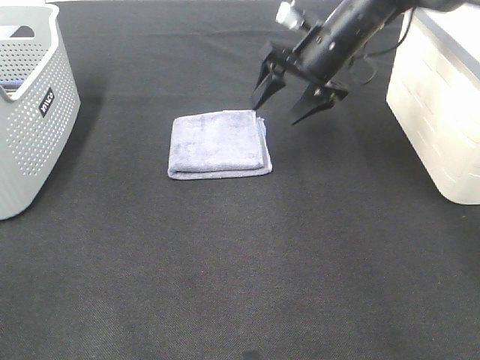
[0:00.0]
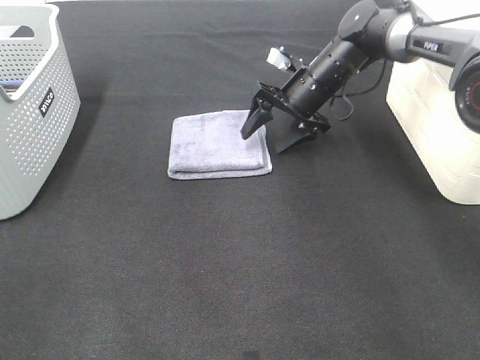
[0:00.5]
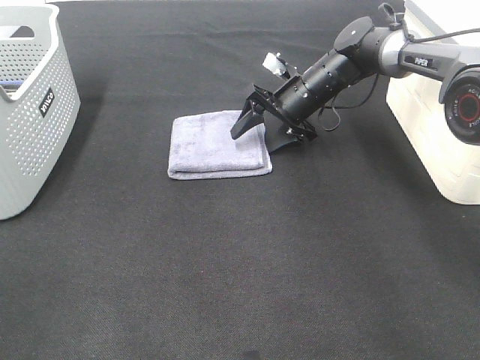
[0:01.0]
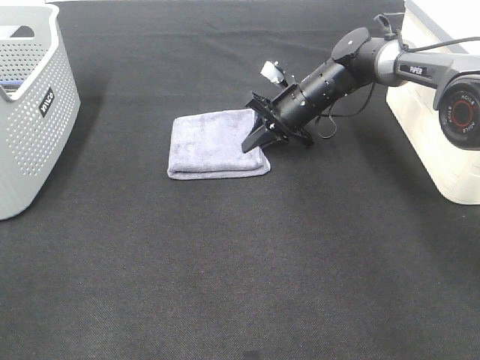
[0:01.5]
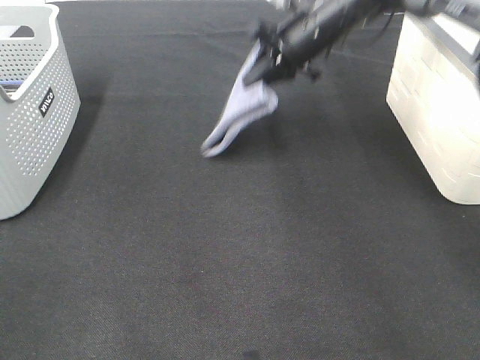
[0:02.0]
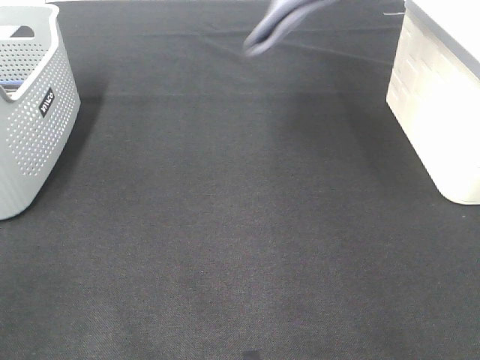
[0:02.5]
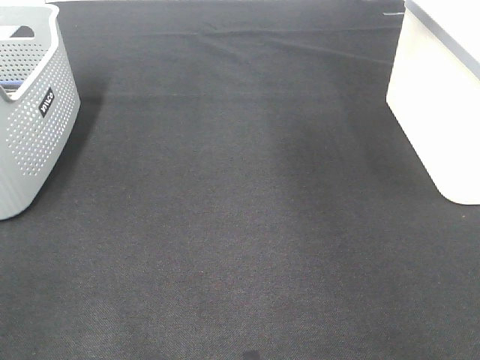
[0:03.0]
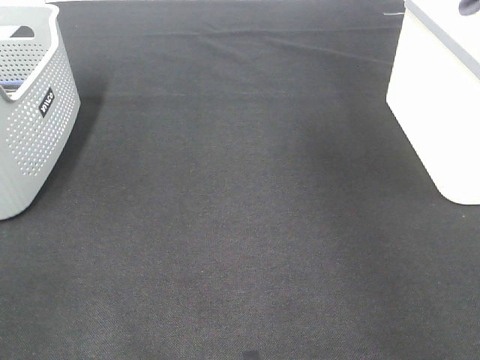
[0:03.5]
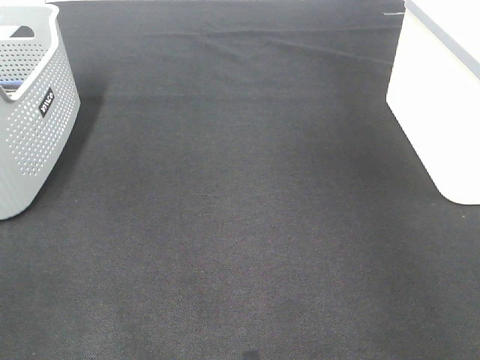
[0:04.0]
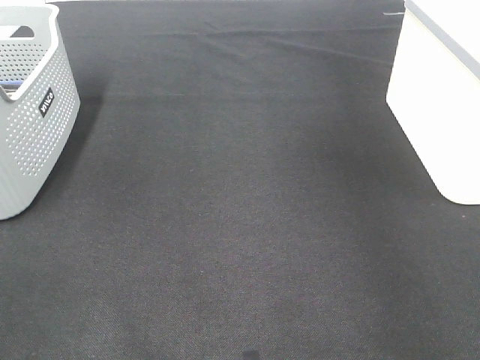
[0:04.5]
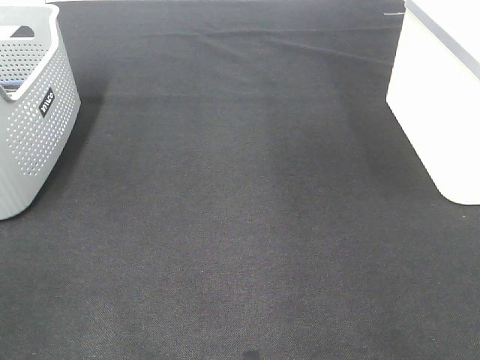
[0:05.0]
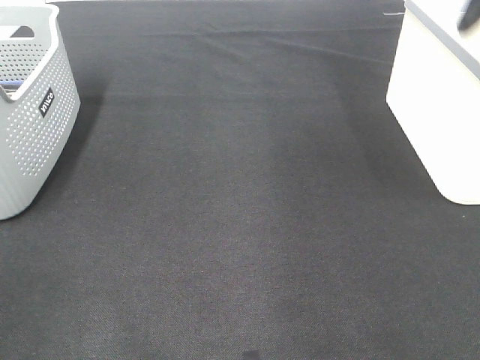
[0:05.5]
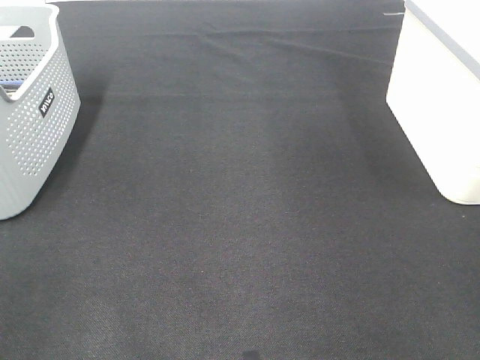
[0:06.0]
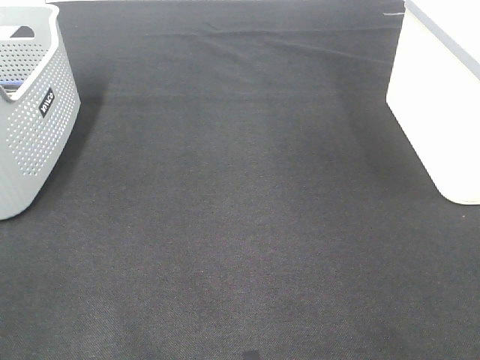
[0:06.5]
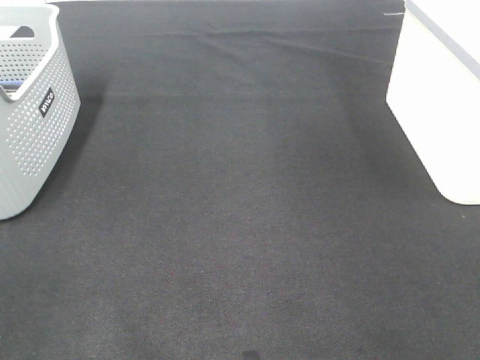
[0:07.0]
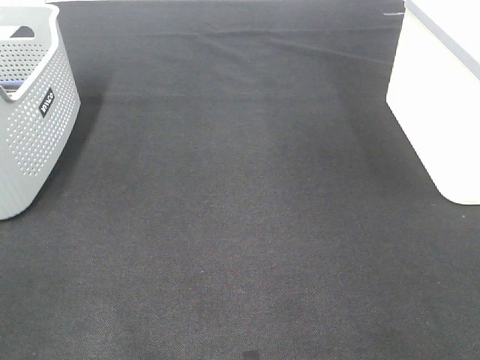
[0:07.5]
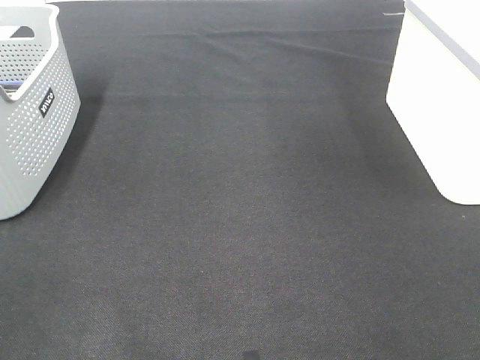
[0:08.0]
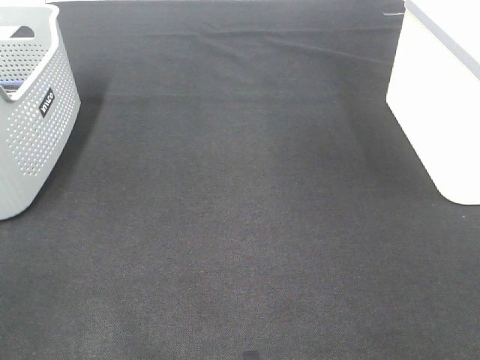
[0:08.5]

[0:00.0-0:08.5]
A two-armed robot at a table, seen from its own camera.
Step, 0:02.0 to 0:04.0: Right hand: place the grey towel in right basket.
0:00.0 to 0:02.0: The right gripper reaches approximately 10 cm downward, then returns, and closes up.
0:02.0 to 0:04.0: The right gripper heads to the right and upward, covering roughly 30 cm, and opens.

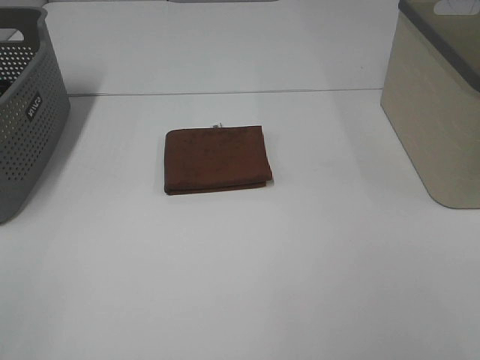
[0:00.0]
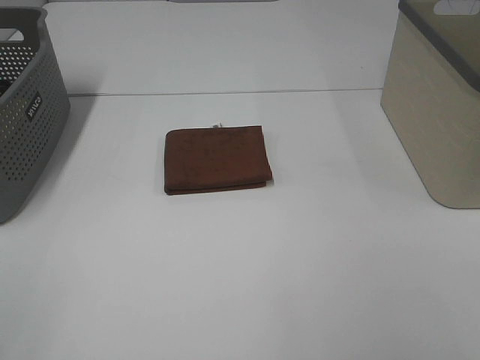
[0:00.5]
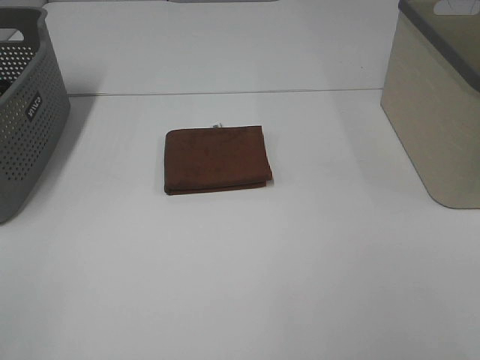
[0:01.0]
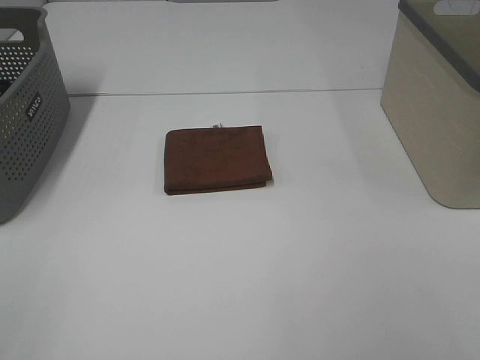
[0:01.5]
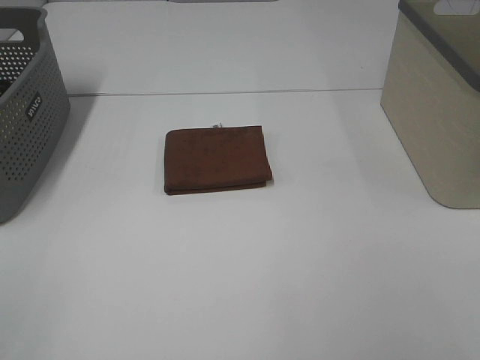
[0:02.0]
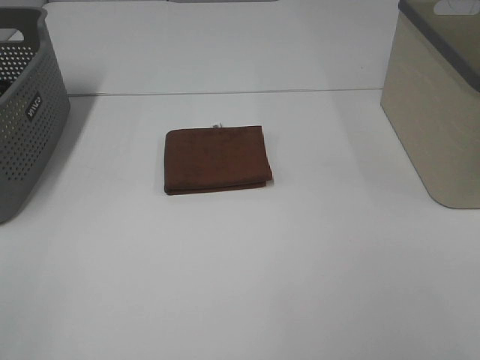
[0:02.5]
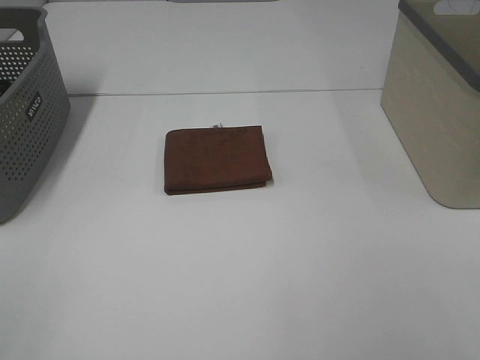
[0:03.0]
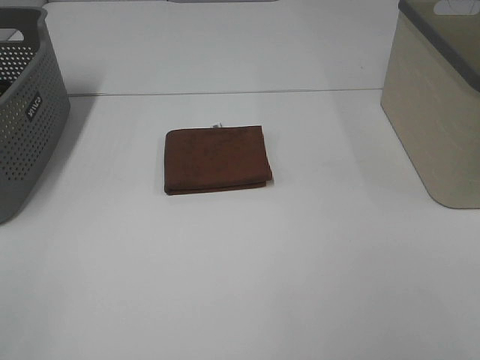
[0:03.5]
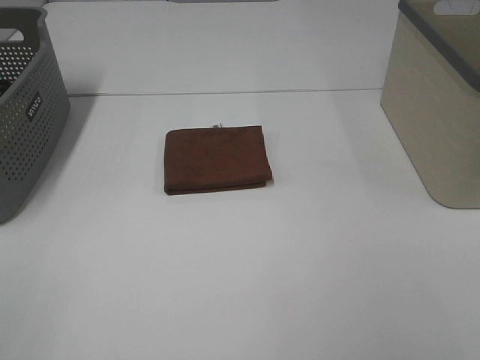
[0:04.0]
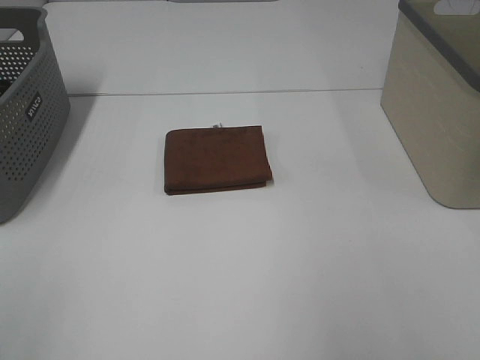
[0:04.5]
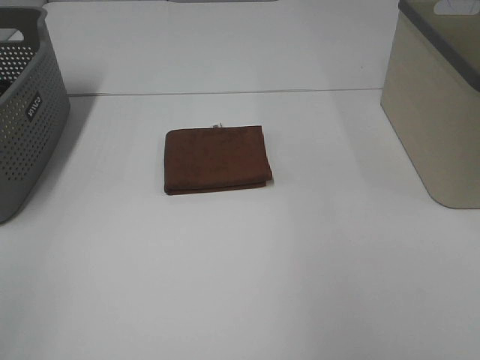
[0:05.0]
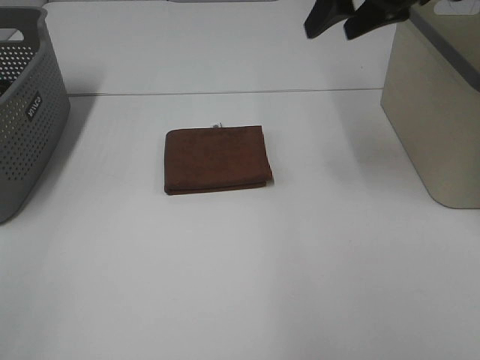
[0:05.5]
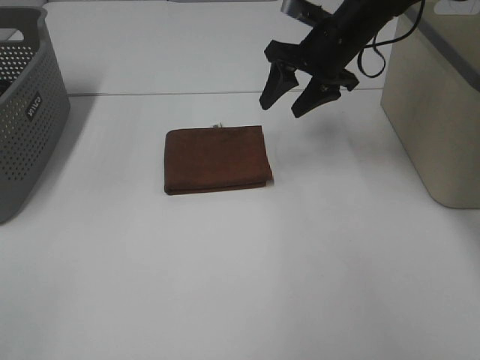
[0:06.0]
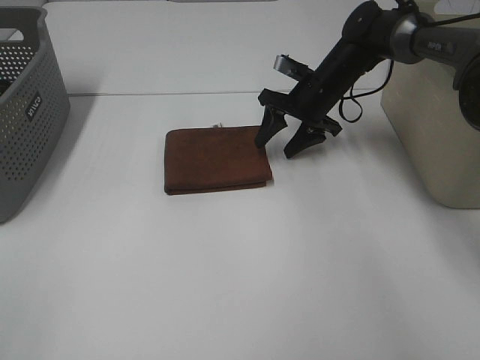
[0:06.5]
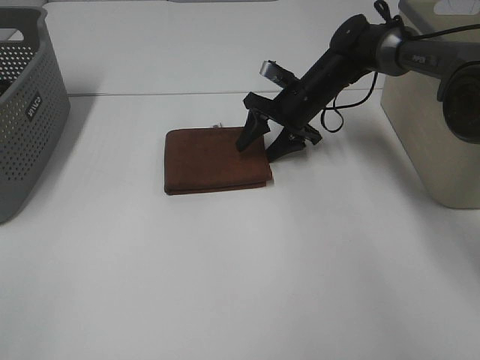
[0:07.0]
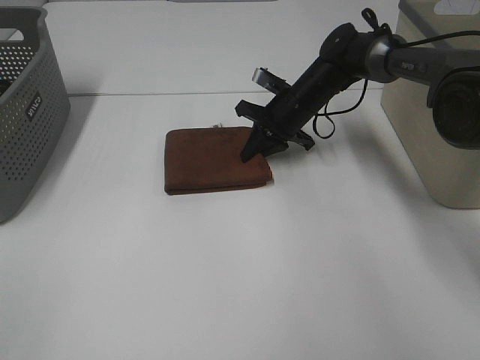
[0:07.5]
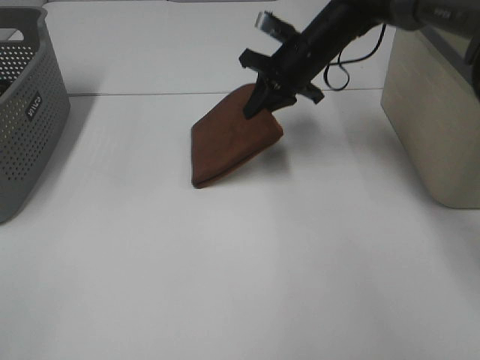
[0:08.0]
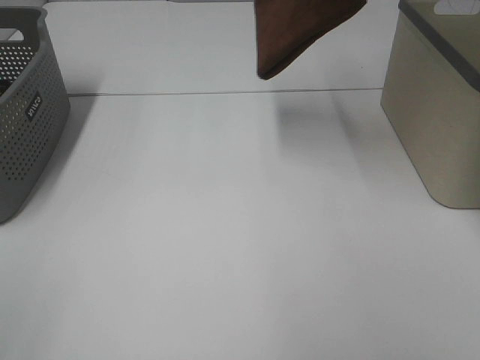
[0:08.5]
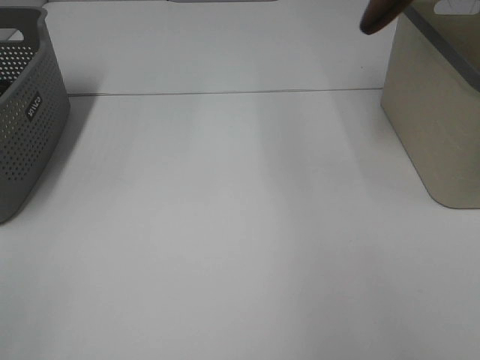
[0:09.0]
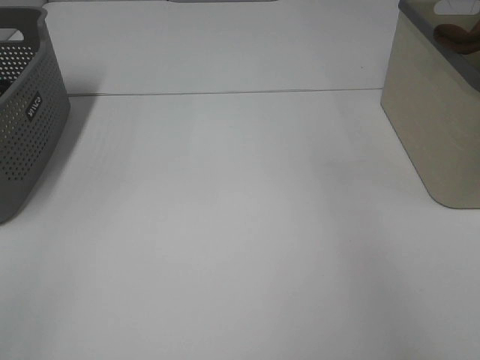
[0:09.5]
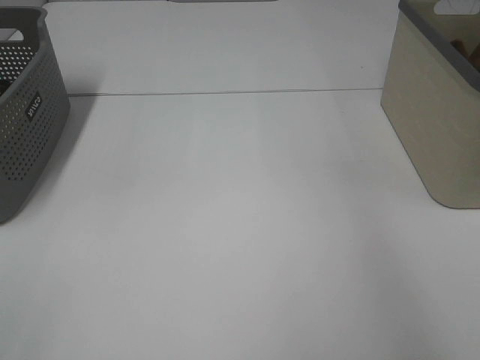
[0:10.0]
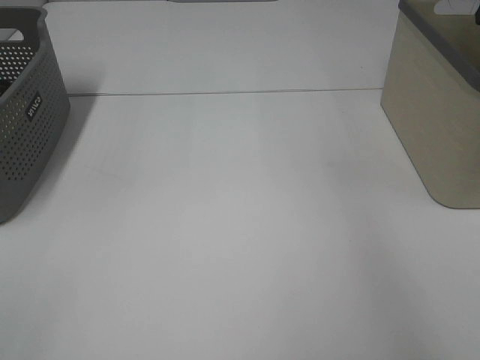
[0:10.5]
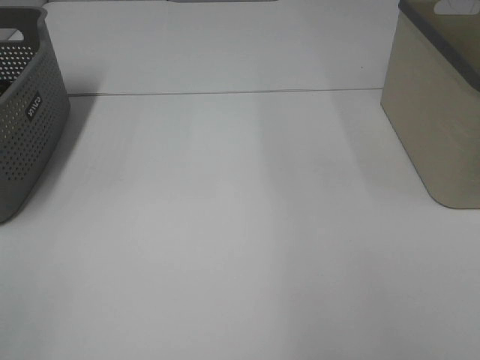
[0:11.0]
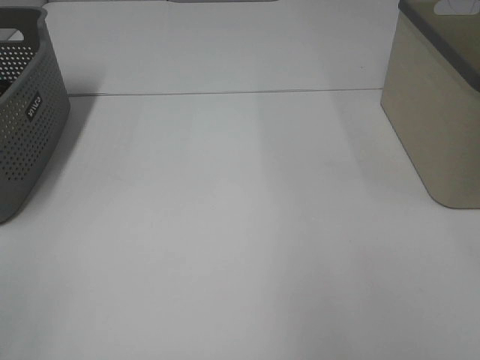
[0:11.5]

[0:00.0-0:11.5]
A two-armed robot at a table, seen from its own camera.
Step, 0:00.0 to 0:07.5: Right hand: grab the folded brown towel.
Step, 0:08.0 to 0:10.0: Right hand: place the brown towel in right basket.
0:00.0 to 0:04.0: The two grippers keep their place.
0:04.0 to 0:06.0: The right gripper travels forward by some 50 cm.
0:06.0 to 0:07.5: The right gripper travels downward by approximately 10 cm, and closes its fingers.
0:07.5 to 0:09.5: The right gripper moves upward and to the right, approximately 40 cm.

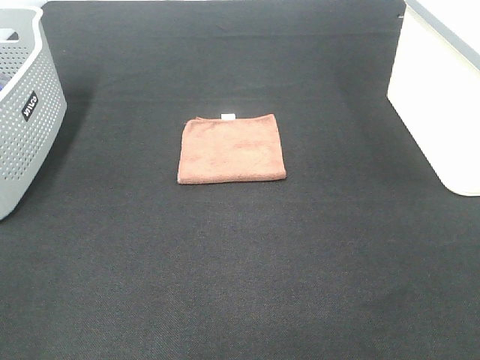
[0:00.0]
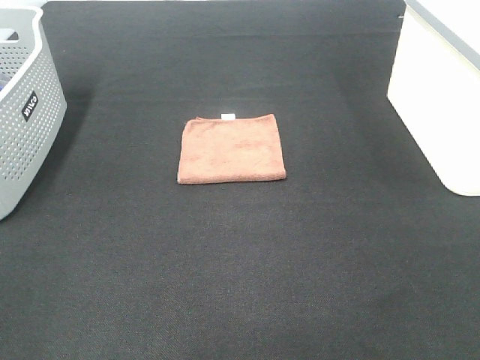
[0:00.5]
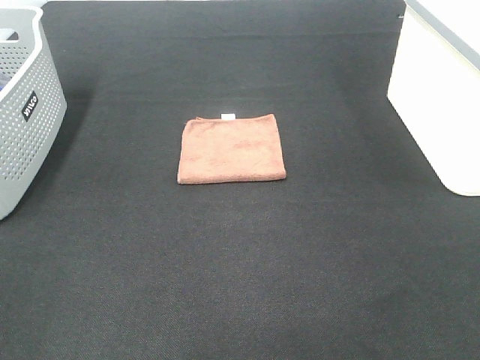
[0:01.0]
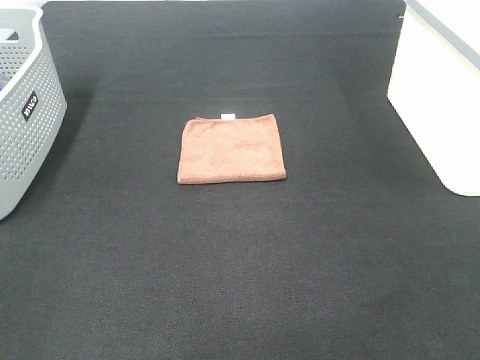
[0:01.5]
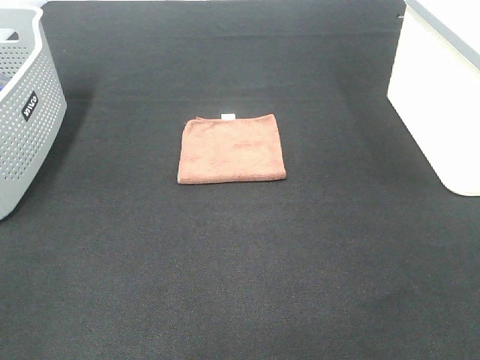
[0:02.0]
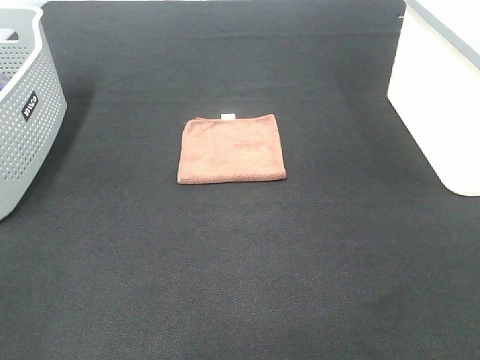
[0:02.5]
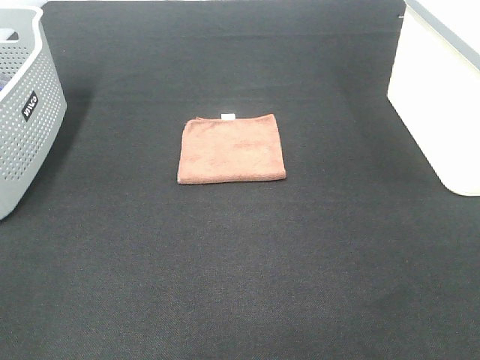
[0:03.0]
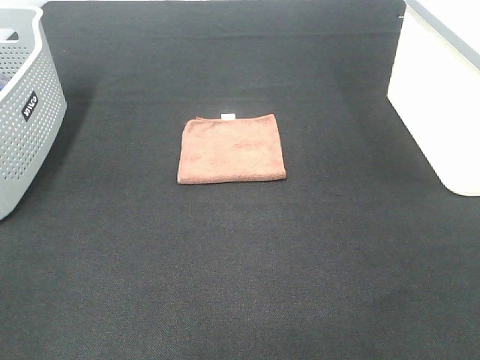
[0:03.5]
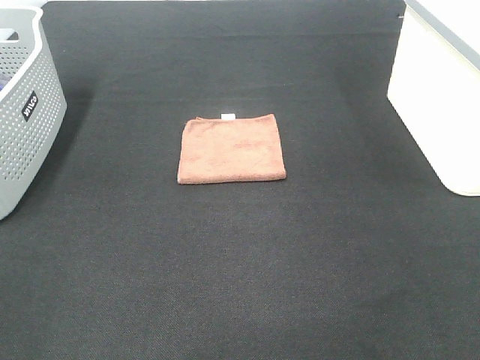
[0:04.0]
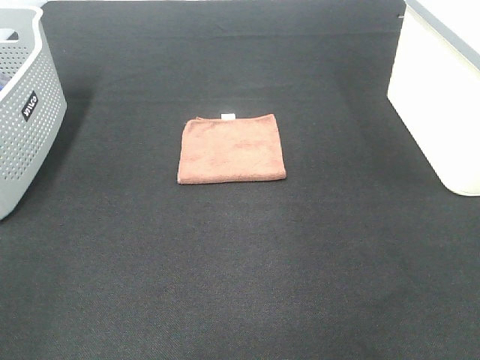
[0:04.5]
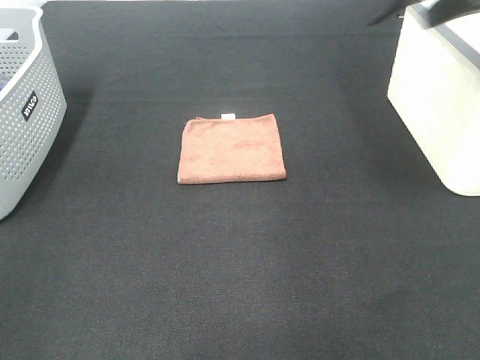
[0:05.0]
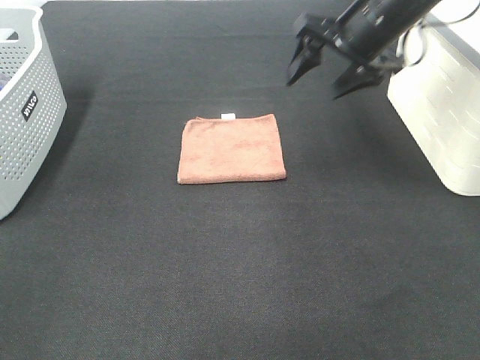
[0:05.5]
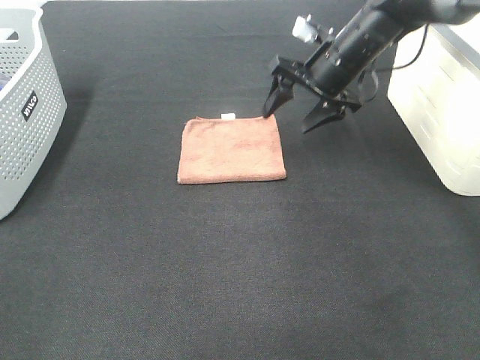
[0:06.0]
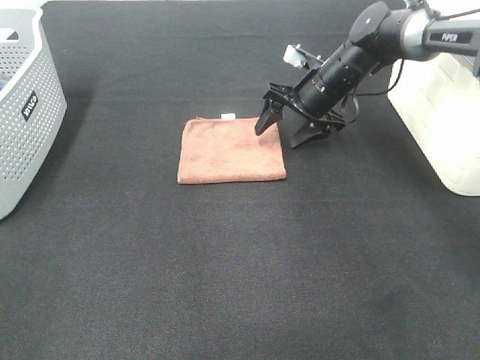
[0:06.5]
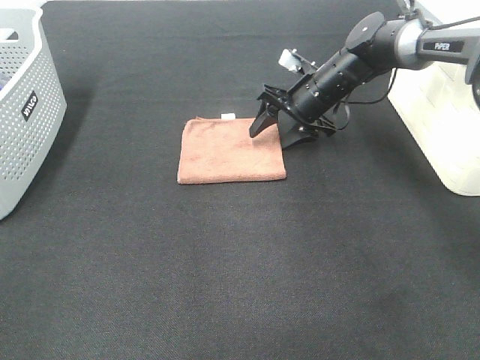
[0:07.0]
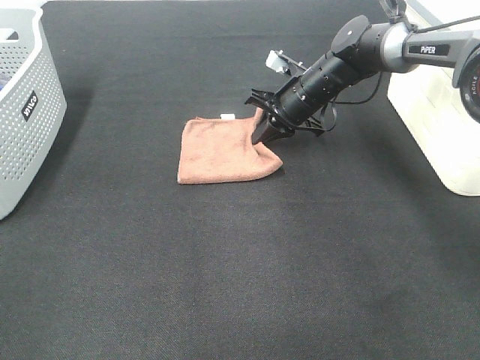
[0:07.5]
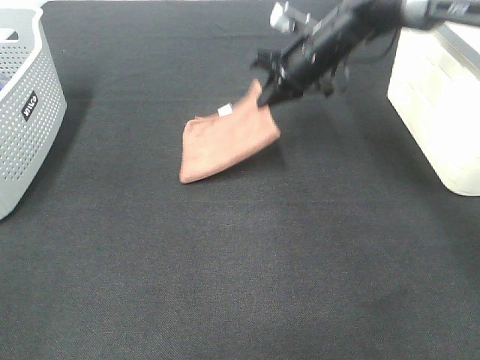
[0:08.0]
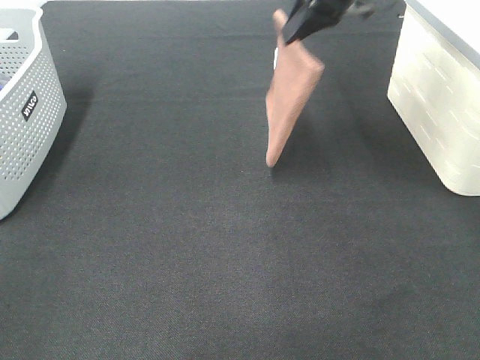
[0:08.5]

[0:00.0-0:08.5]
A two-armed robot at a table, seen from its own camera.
Step, 0:00.0 to 0:07.5: Right hand: grab the folded brown towel.
0:00.0 to 0:02.0: Both grippers stay about where they are.
0:04.0 to 0:06.5: The right gripper goes approximately 50 cm forward and downward.
0:06.5 to 0:08.5: The right gripper is displaced upward by some 20 cm, and closes.
